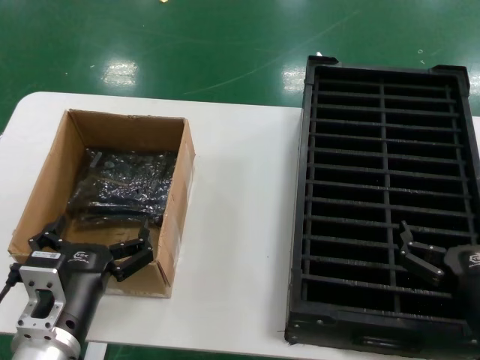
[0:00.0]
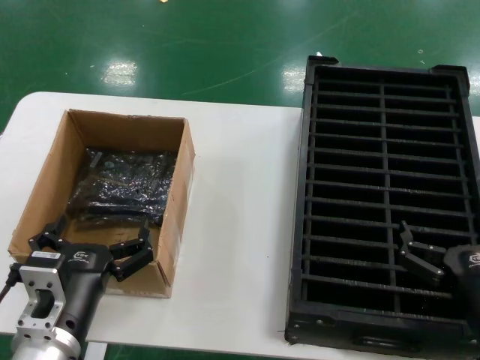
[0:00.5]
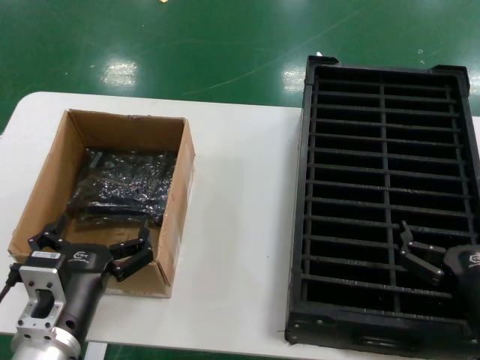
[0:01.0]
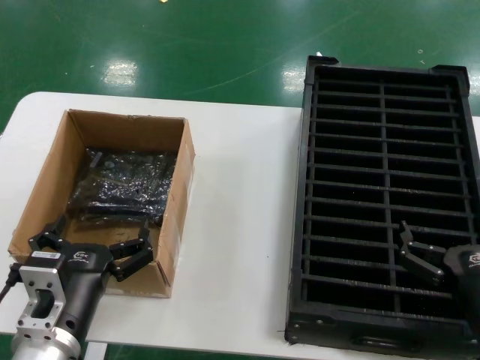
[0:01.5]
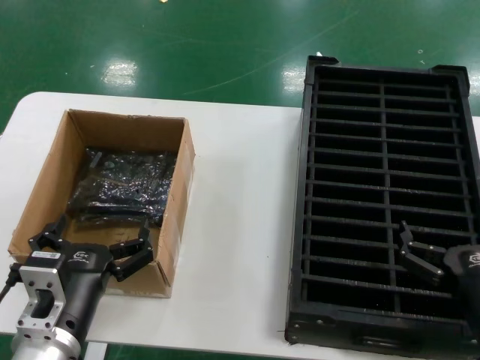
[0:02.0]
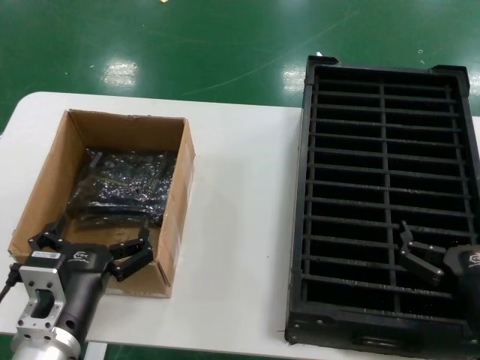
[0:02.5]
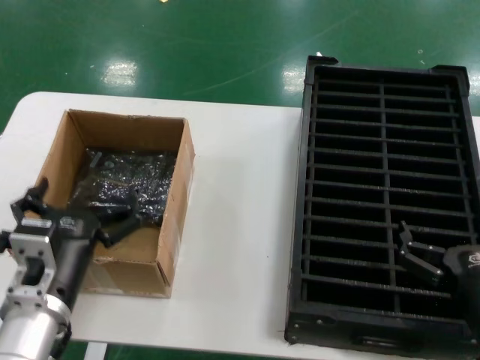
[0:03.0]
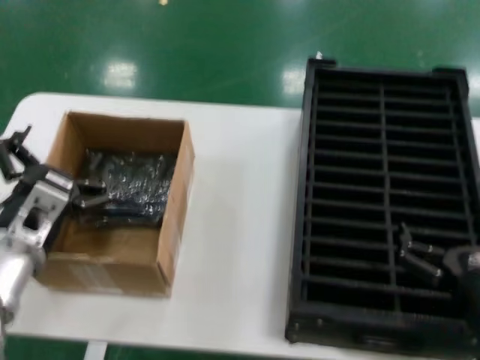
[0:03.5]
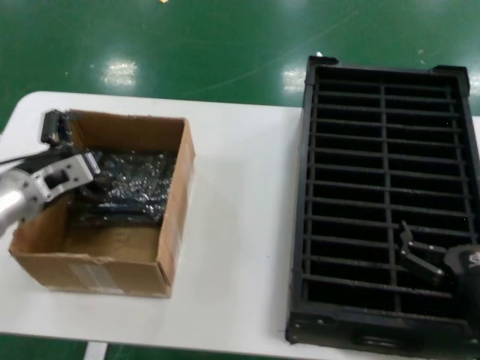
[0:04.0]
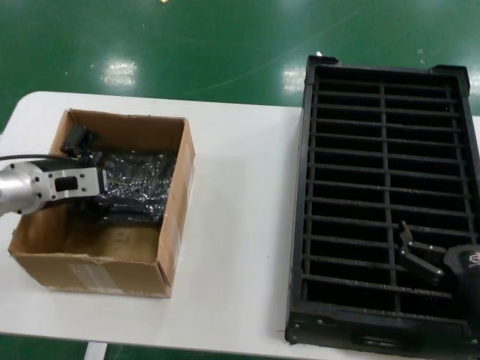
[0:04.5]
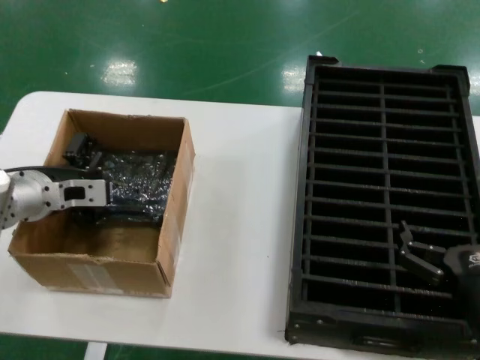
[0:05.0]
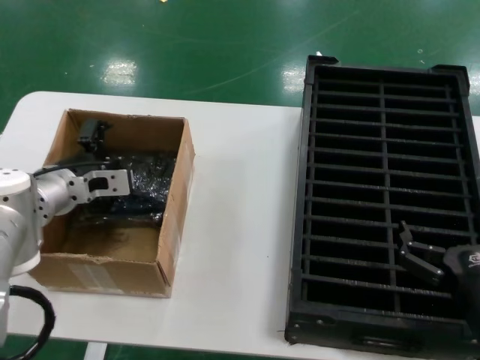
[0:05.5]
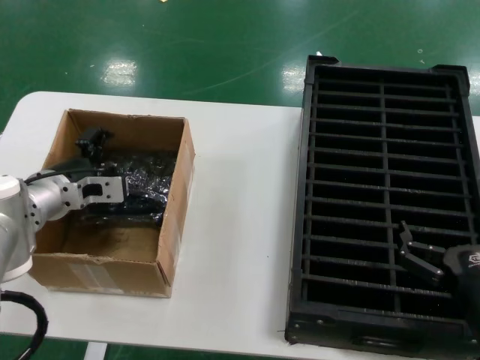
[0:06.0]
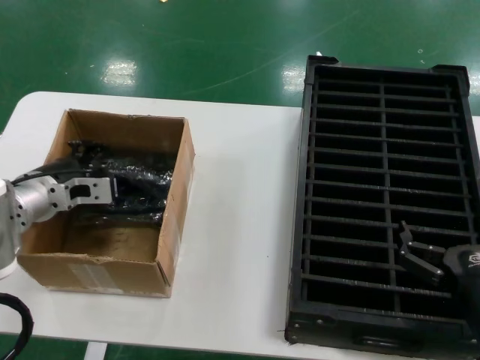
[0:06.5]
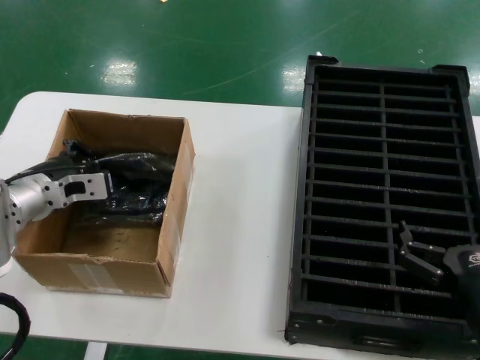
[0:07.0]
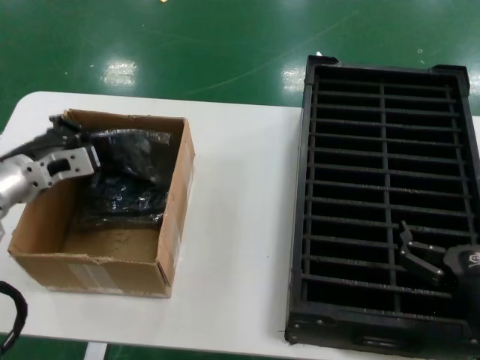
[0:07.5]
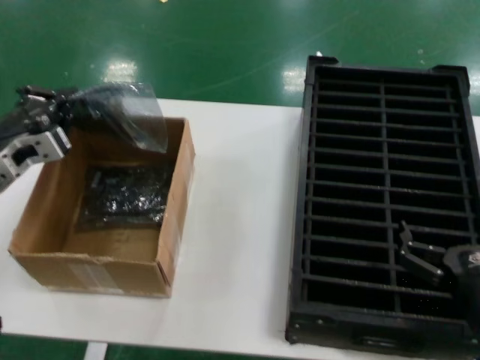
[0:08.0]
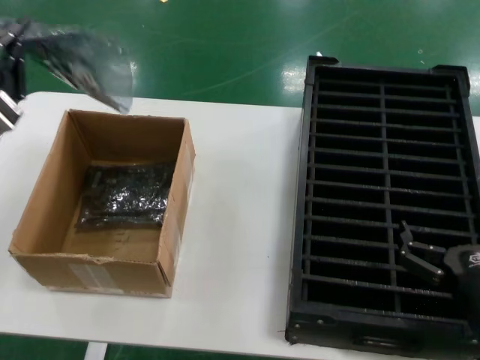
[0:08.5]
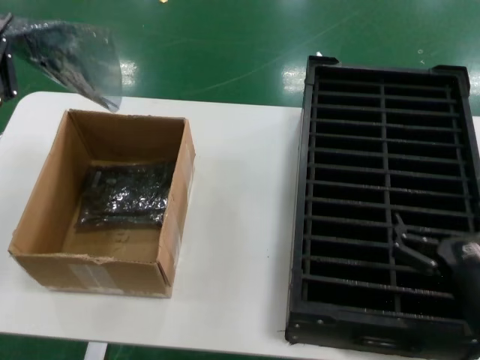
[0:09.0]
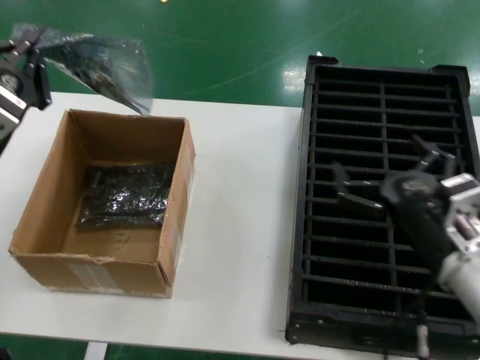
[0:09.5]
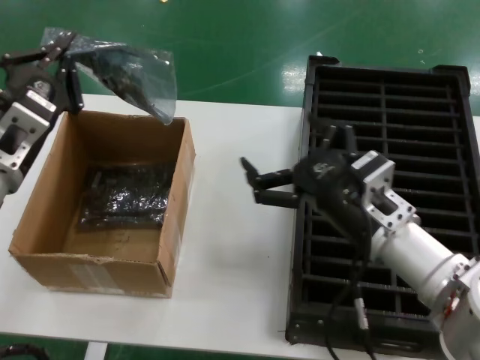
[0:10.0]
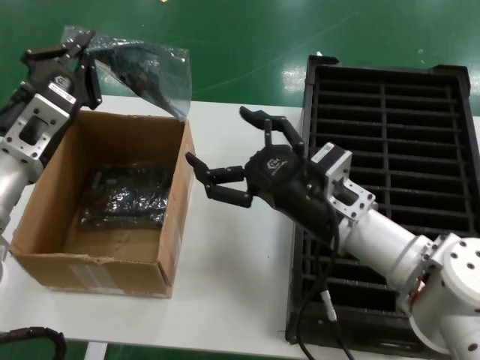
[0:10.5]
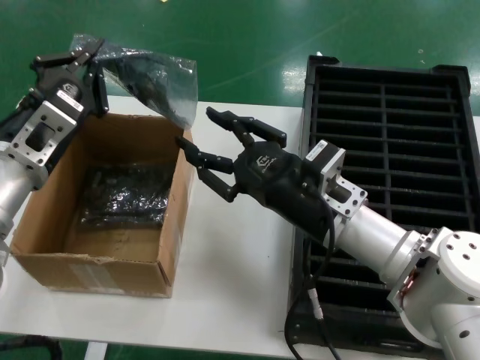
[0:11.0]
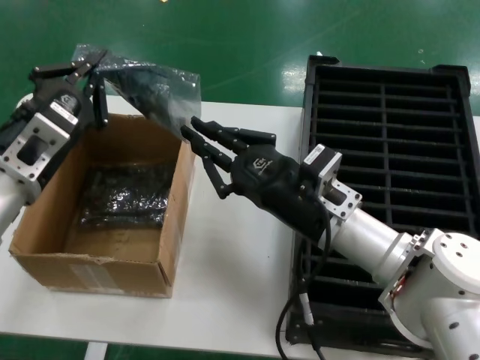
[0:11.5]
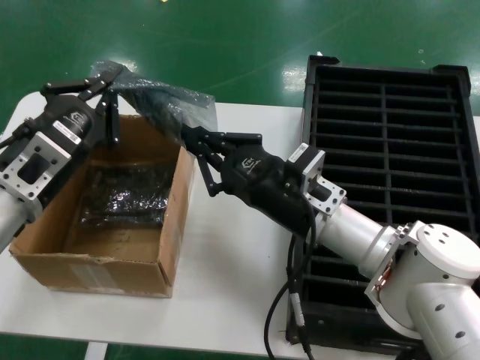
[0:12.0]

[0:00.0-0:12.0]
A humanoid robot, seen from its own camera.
Task of the whole recording: take out graphics card from box remove packaging put into black container.
Step, 0:00.0 to 0:07.0: Grasp the bag.
Step, 0:07.5 to 0:09.0: Lift the bag.
0:00.0 to 0:02.0: Both hands stay put.
0:02.0 to 0:04.0: The left hand shifts approximately 25 cm forward, to the left and upward.
0:04.0 to 0:06.0: The left hand shifts by approximately 5 cm.
0:06.0 to 0:08.0: The left hand shifts roughly 5 cm to the left.
0:08.0 to 0:10.0: The left hand is displaced backward and to the right by some 10 cm; the right hand moves forward, to the left and upward, about 15 cm.
0:10.0 to 0:12.0: The right hand goes roughly 10 cm to the left and forward.

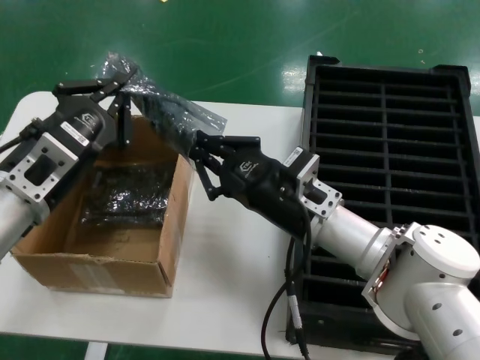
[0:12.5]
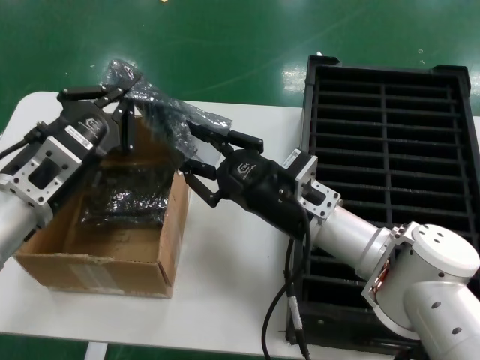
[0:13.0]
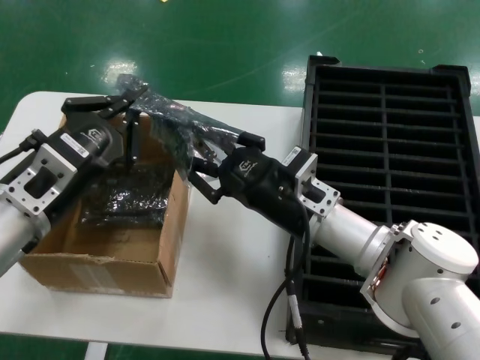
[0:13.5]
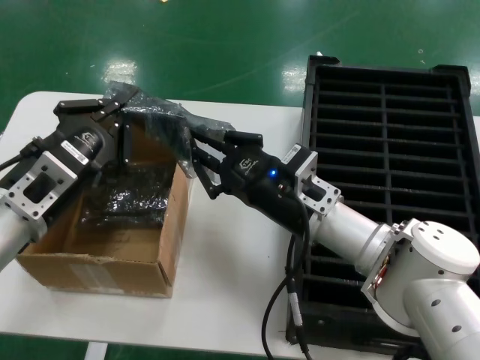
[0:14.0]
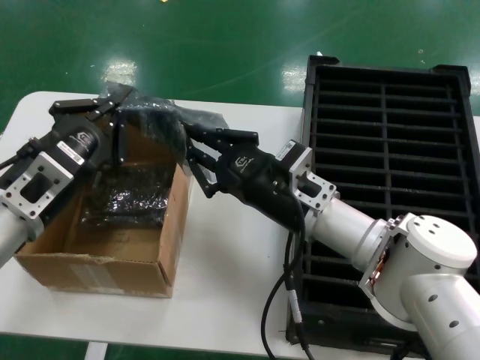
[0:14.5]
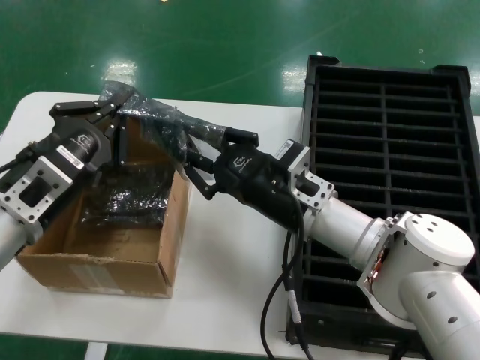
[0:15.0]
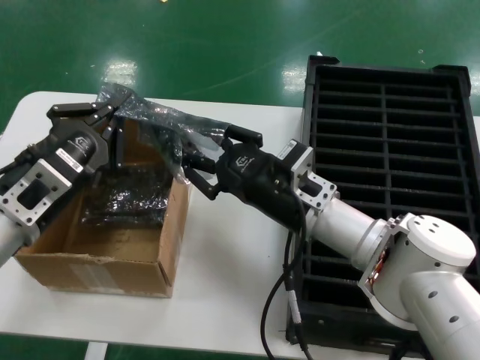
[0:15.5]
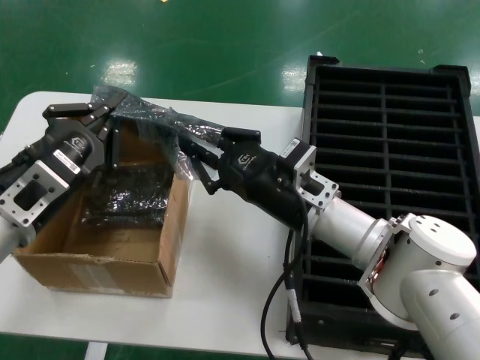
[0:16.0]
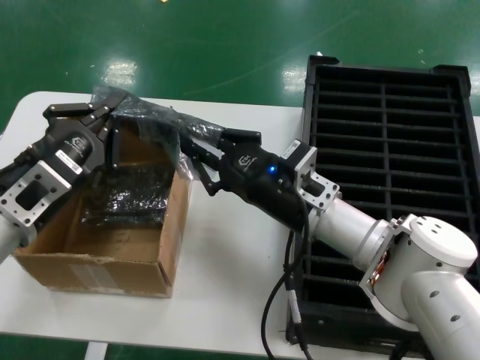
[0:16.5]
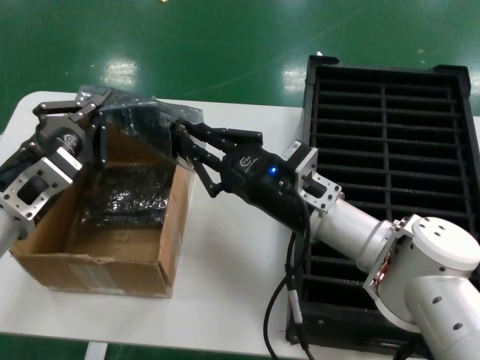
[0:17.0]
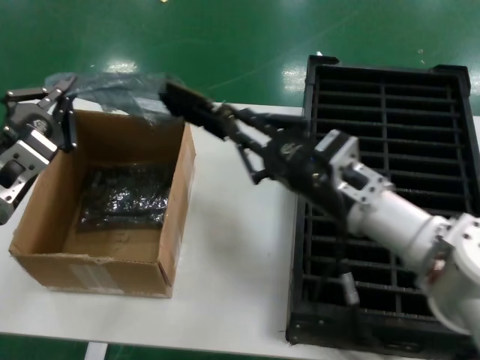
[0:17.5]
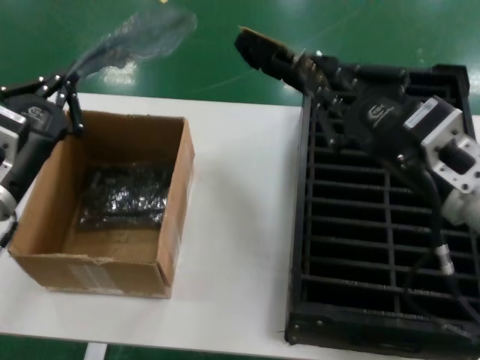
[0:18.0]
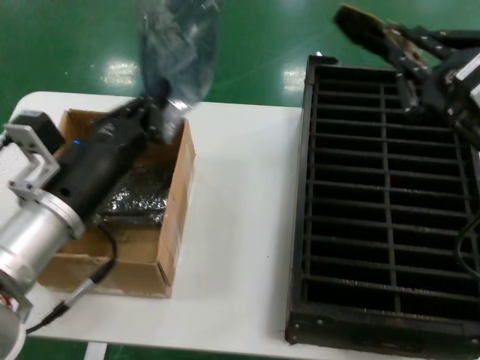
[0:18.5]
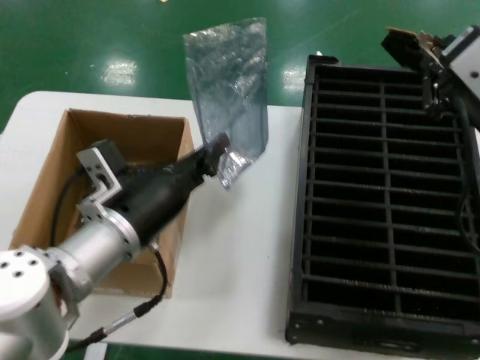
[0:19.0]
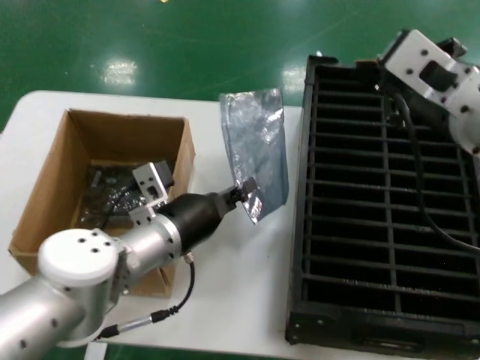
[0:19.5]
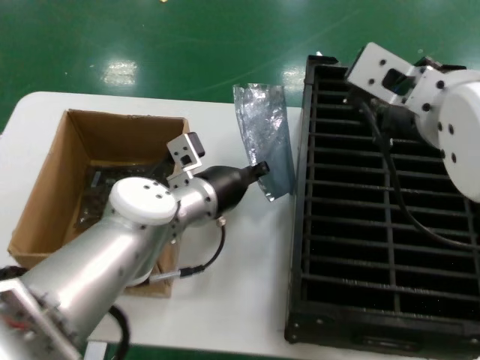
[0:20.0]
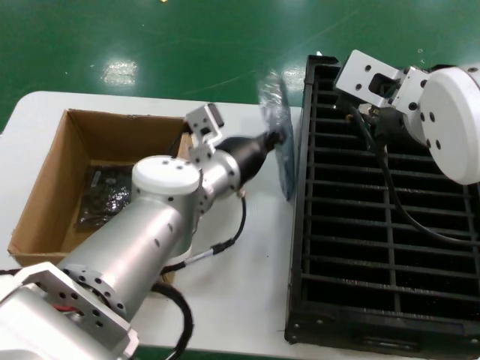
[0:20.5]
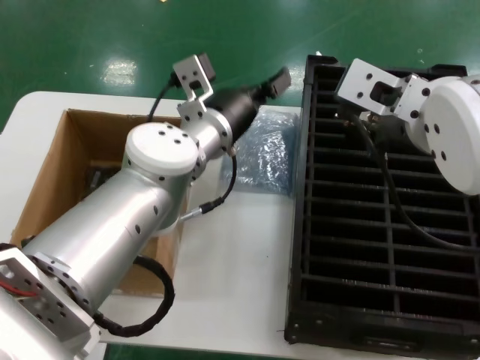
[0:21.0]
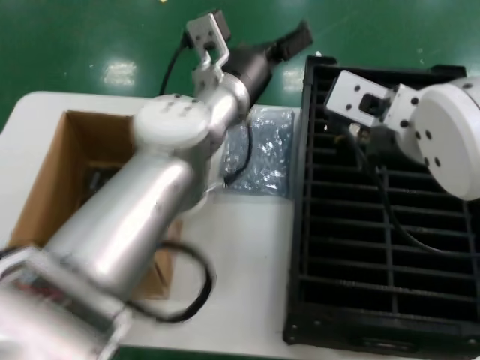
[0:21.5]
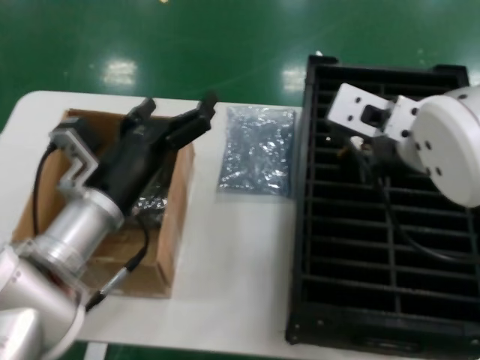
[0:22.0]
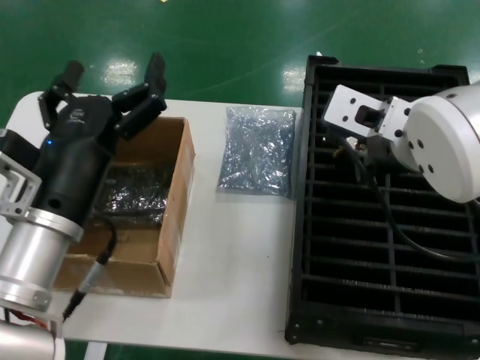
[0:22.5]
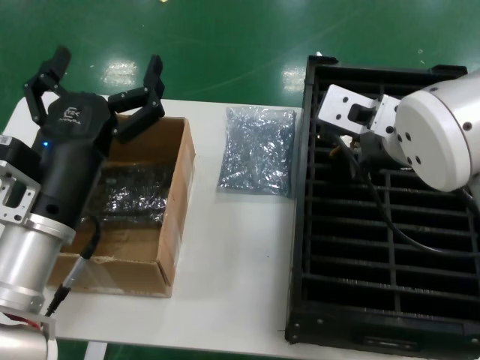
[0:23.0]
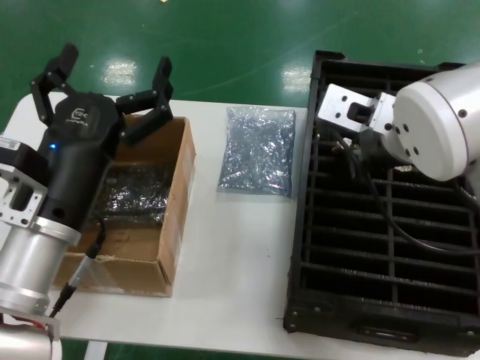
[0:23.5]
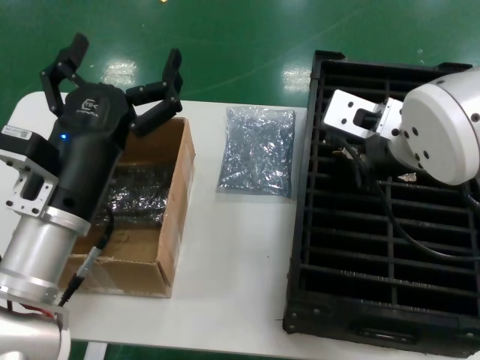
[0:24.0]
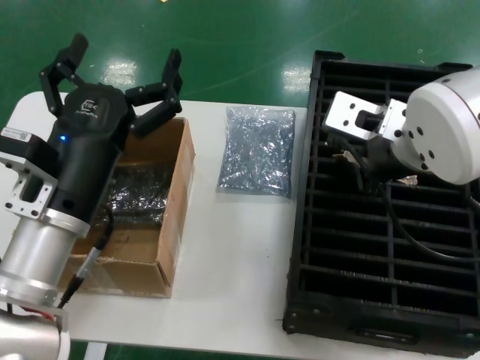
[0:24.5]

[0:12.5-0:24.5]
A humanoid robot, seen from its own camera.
Task of the whole recording: take out graphics card from box remove packaging put into black container.
Step, 0:12.5 to 0:17.5: Take out the hard disk of the bag.
Step, 0:18.0 to 0:20.5: Place the down the bag.
0:12.5 to 0:14.5: There are only small adjustments of the hands.
0:14.5 to 0:16.5: Both hands stay about where they are.
0:16.5 to 0:18.5: The right hand shifts some 25 cm upward, backward and to the right.
0:18.5 to 0:20.5: The left hand goes some 25 cm forward and to the right; the right hand is displaced to the left, forward and upward by approximately 15 cm.
0:20.5 to 0:22.5: The left hand shifts roughly 20 cm backward and to the left.

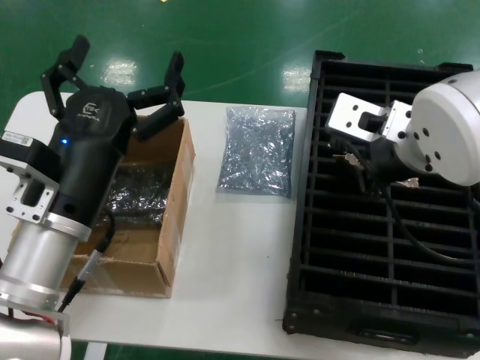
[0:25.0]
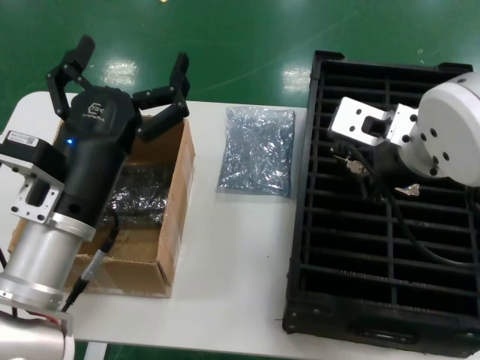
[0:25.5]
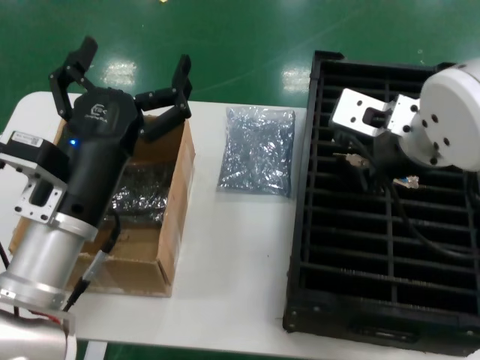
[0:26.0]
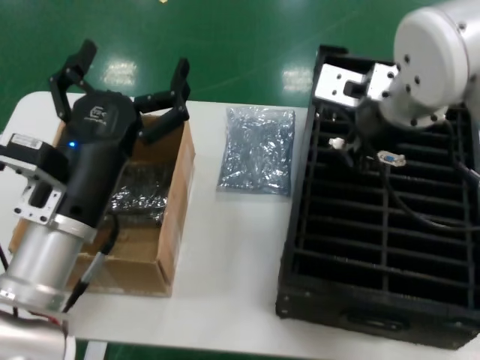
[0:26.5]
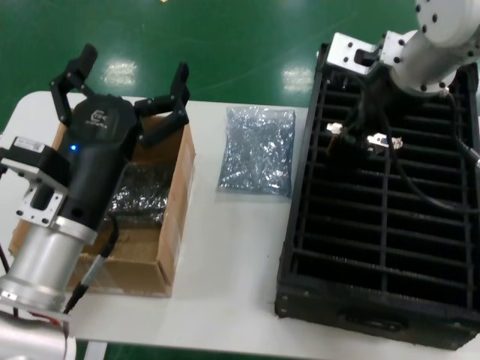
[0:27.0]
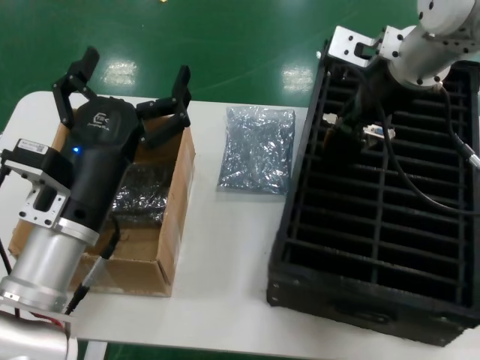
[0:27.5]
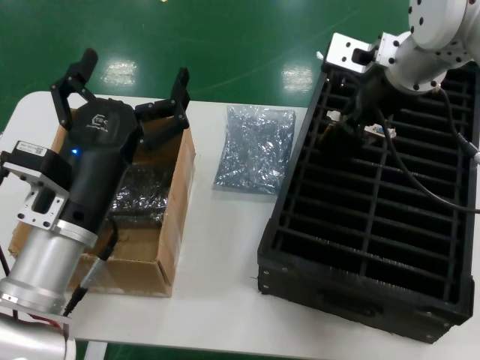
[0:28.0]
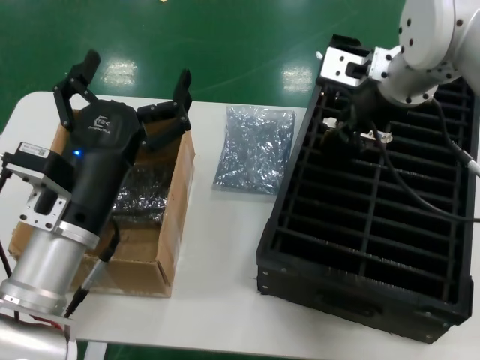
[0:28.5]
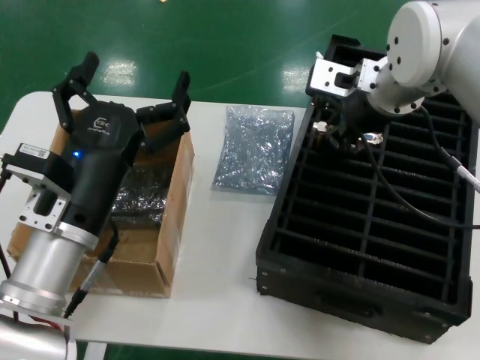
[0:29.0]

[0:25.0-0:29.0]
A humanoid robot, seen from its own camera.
Task of the whole recording: take out graphics card from box remove packaging put into black container.
0:25.0 to 0:27.0: The right hand heads forward, covering some 10 cm.
0:27.0 to 0:29.0: The right hand moves about 5 cm.
